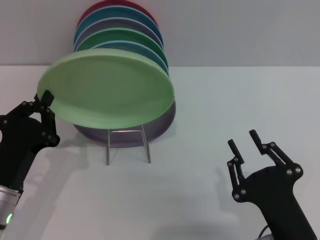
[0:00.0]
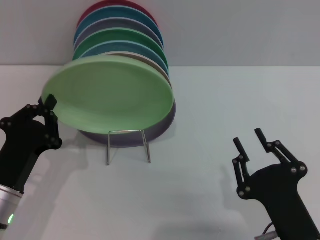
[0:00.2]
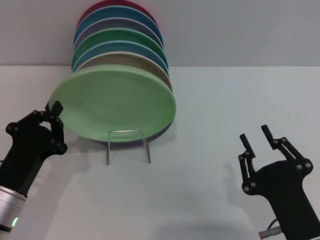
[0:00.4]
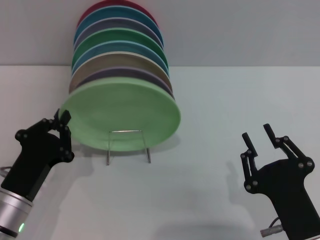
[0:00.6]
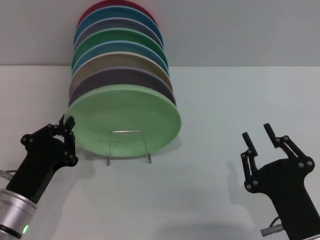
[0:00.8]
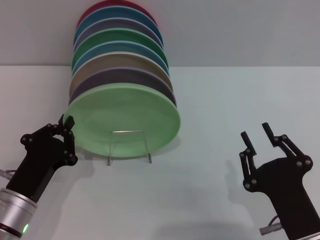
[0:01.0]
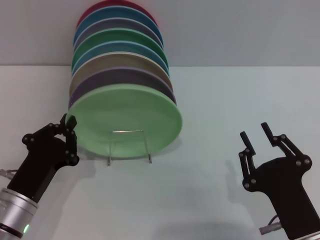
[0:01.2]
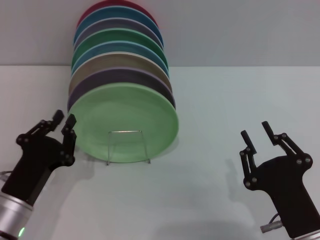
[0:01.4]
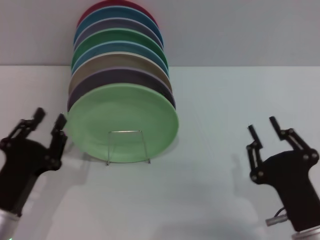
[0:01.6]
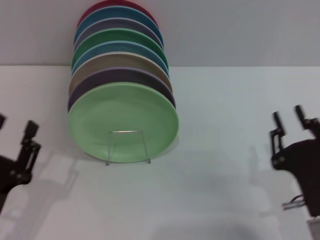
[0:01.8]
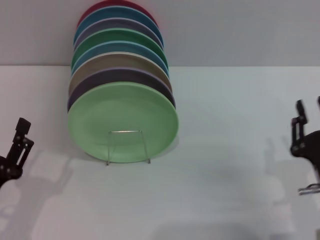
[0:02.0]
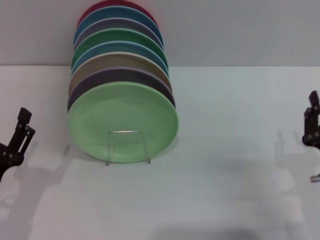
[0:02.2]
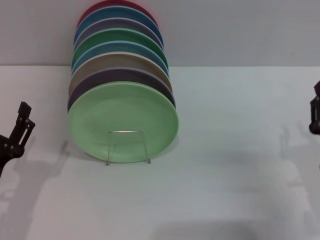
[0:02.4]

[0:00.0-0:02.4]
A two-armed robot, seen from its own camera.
Task of the whole recording: Grip the plate with one hand, pass it to the other, then set it on the shelf.
Step, 0:00.0 to 0:01.6: Place the plate on the shelf with the left gripper.
0:01.2 to 0:02.4: The right gripper travels to the right and forward by some 10 cm, while the left gripper opens.
